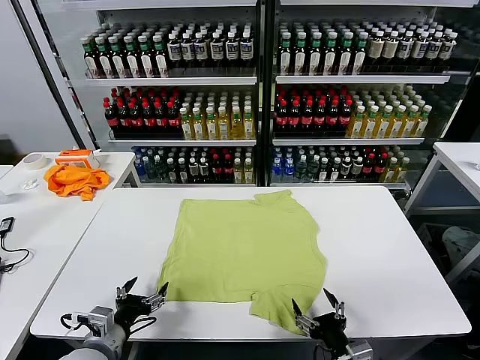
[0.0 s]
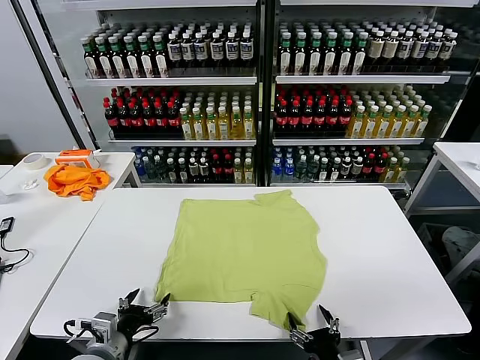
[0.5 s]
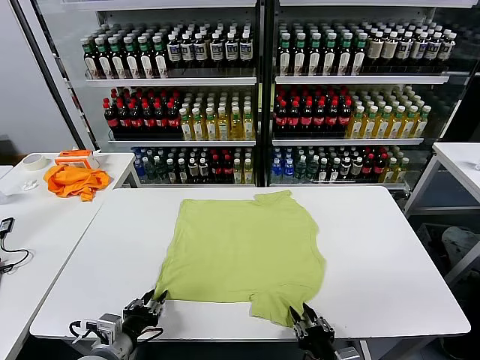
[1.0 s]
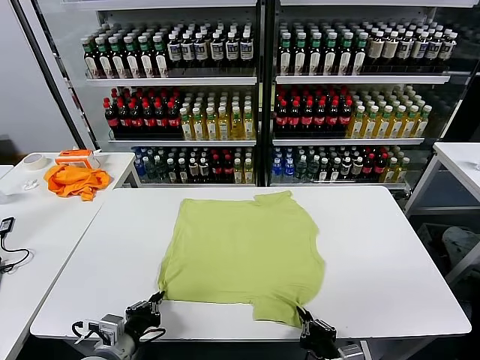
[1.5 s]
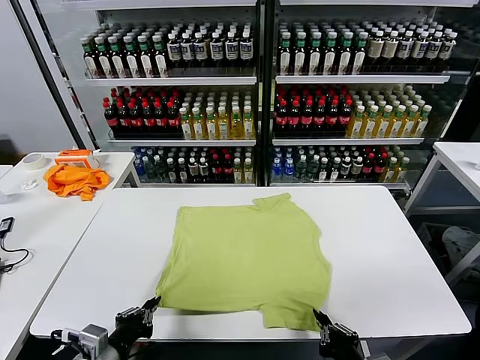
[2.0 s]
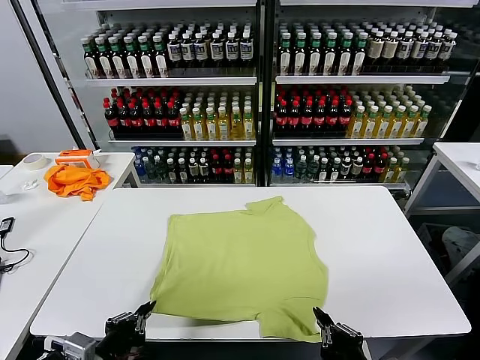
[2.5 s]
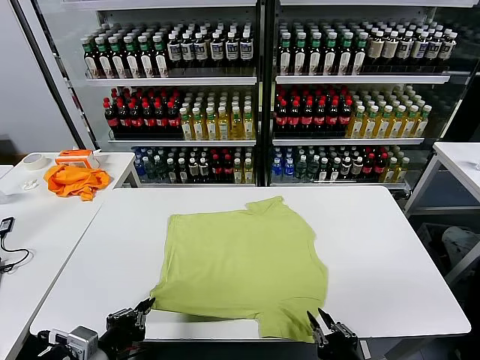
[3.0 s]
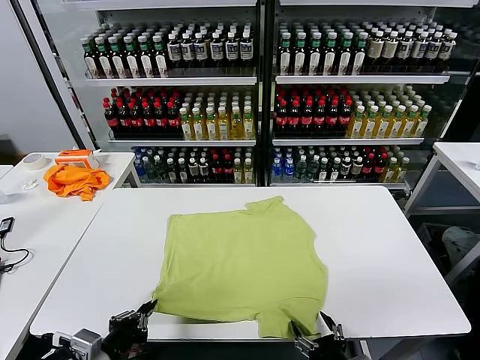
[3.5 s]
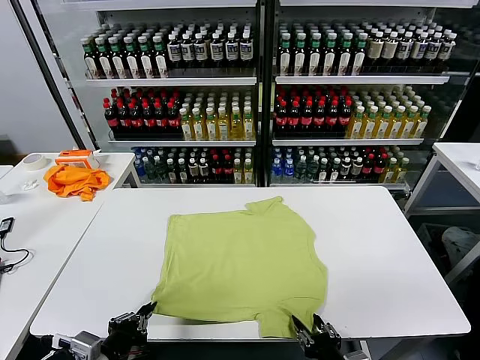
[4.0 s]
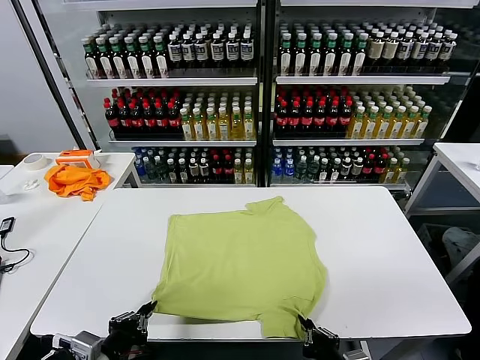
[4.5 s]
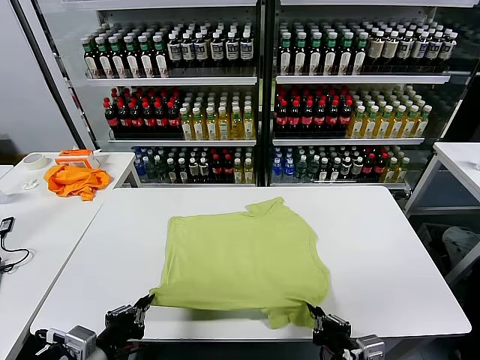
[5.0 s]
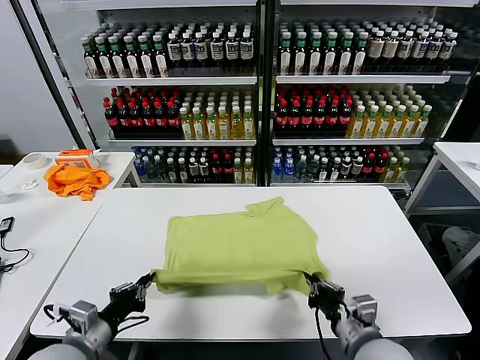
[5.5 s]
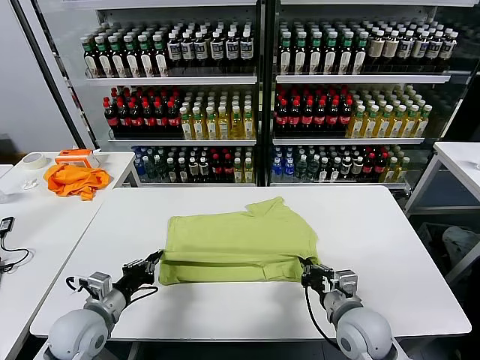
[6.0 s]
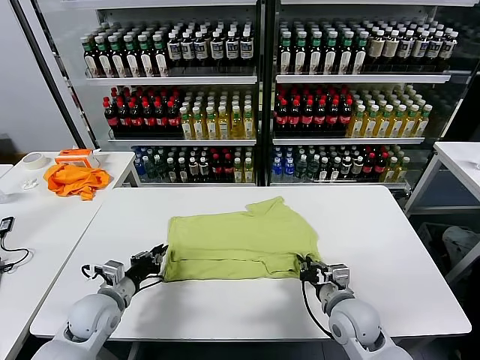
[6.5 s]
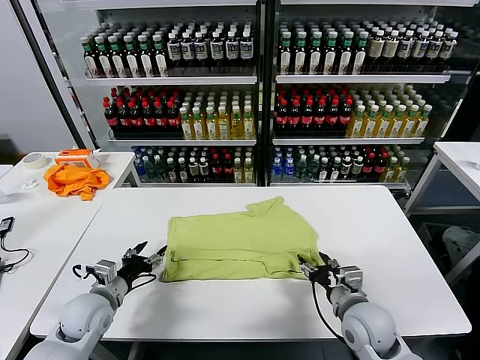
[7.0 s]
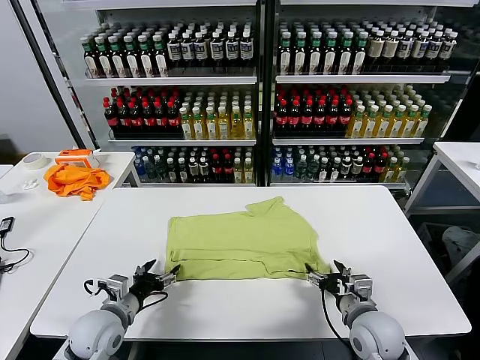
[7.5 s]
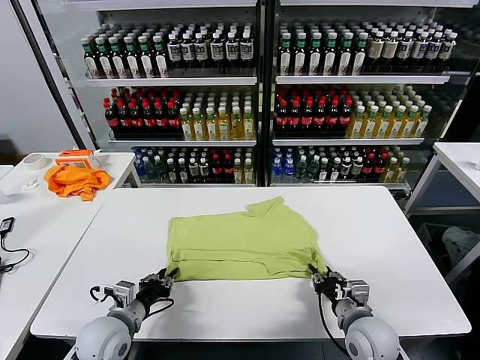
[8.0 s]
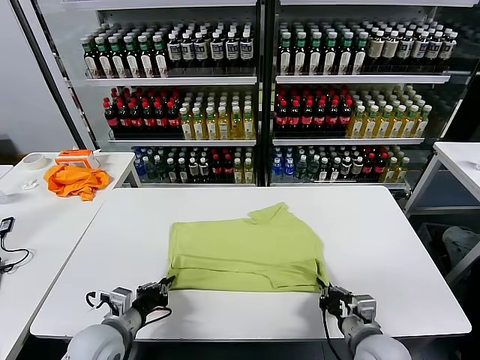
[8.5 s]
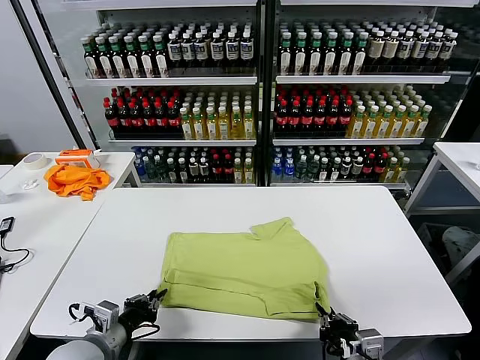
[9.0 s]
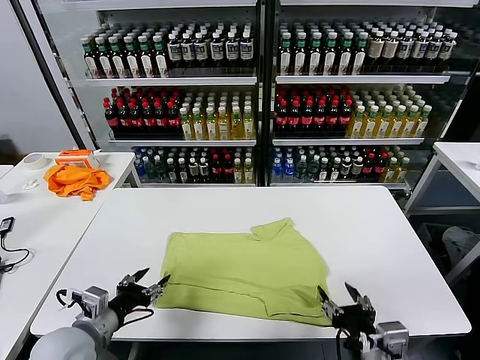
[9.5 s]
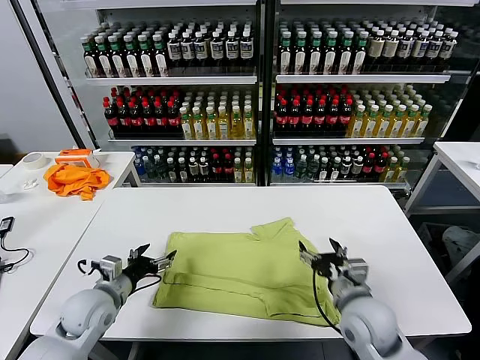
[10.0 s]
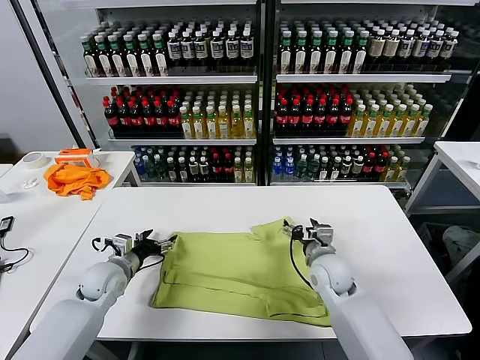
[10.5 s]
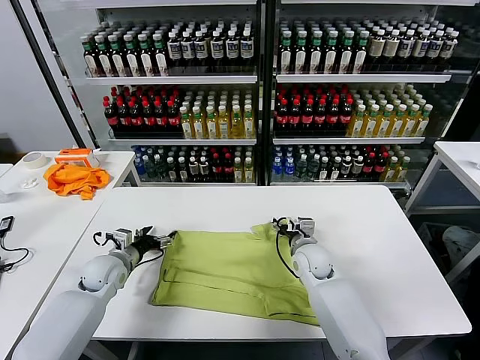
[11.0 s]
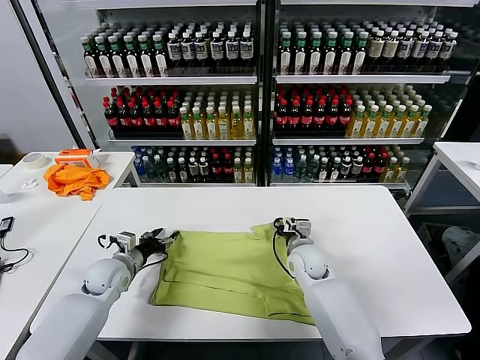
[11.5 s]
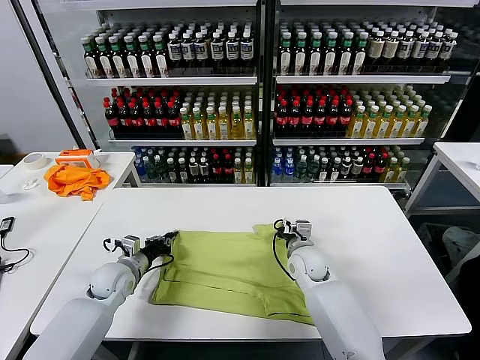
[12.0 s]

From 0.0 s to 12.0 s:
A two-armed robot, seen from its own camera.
Task of the whole recording: fold and organize the clothes.
Step, from 0.0 s to 1.0 s: use both grippers simultaneously to clamp the lower edge of the clothing fabric.
Step, from 1.5 s to 6.5 s: use both grippers to drag the lower edge of the fabric forward and fold it over the upper edge.
Step, from 7.0 s to 9.0 s: Drag the clothes downward with both gripper.
Step, from 9.5 s to 12.0 s: use both grippers simultaneously to clamp the upper edge of the clothing fabric.
From 2.0 s to 4.0 s: The right gripper moves downward, some 5 cm, and opens, then closes again.
From 4.0 s to 6.0 s: Both grippers move forward, approximately 15 cm.
From 6.0 s to 8.0 s: The left gripper moves roughly 5 cm, and opens and closes again; the right gripper opens, then closes once more.
From 8.0 s to 10.0 s: The right gripper shifts some 5 cm upward, travels backward and back again, some 10 cm each way, and opens; the left gripper goes roughly 5 cm forward, and opens.
From 10.0 s to 12.0 s: The left gripper shifts some 10 cm forward, and closes its fingers, while the right gripper heads forward, downward and to the left, covering roughly 15 cm, and closes.

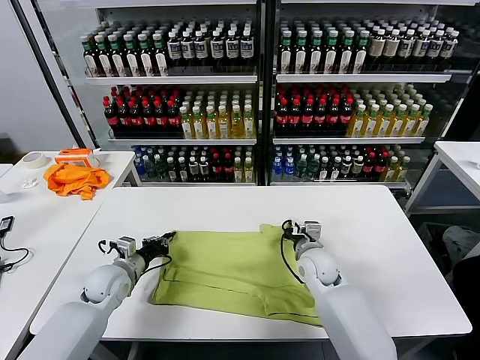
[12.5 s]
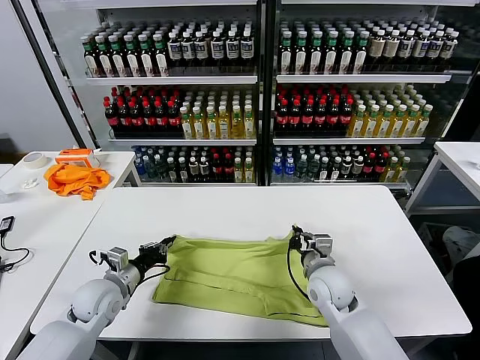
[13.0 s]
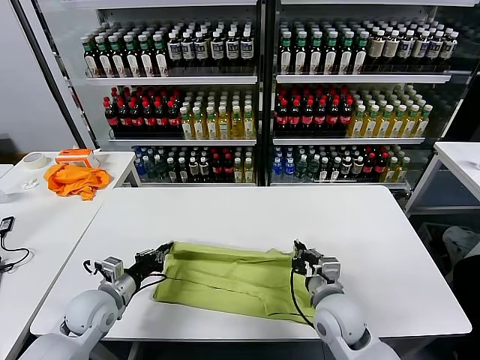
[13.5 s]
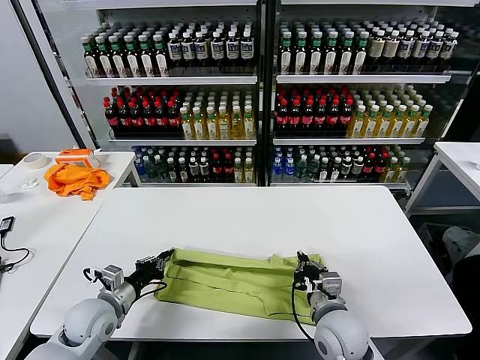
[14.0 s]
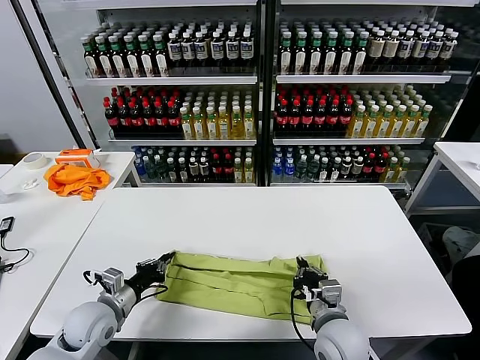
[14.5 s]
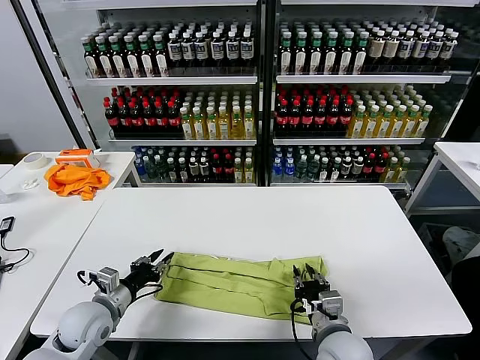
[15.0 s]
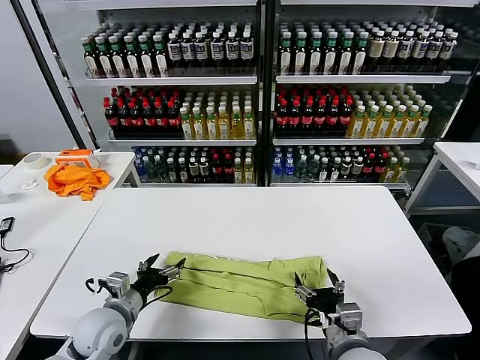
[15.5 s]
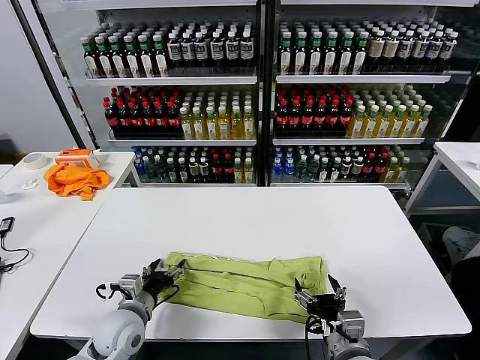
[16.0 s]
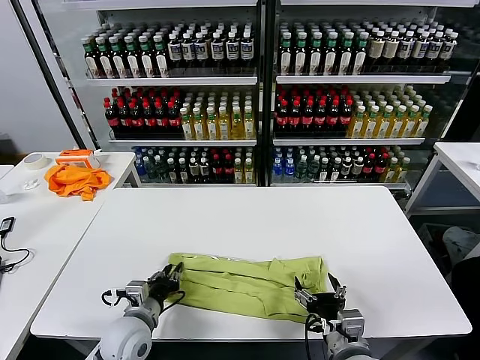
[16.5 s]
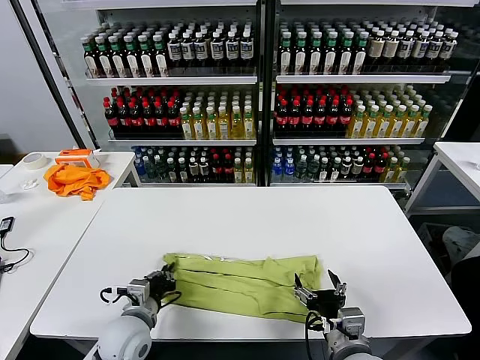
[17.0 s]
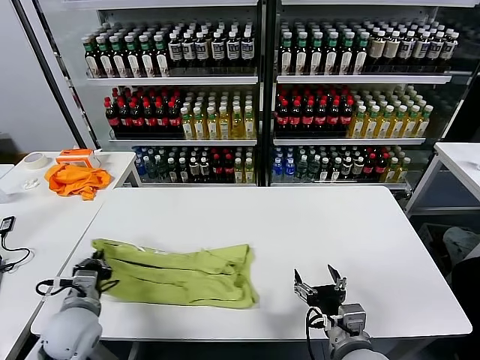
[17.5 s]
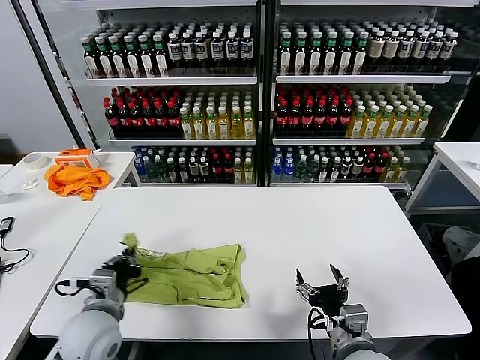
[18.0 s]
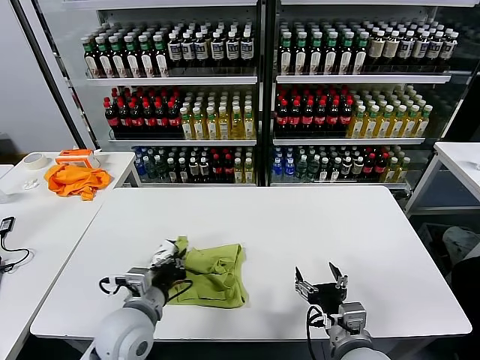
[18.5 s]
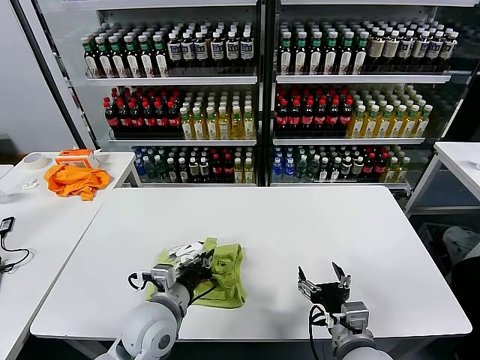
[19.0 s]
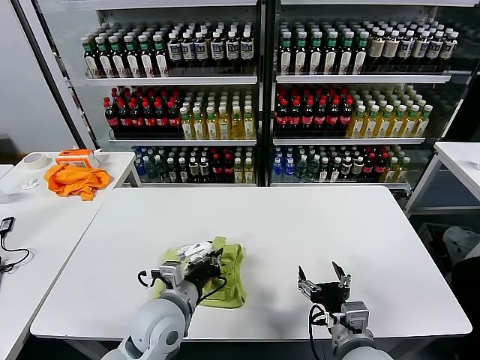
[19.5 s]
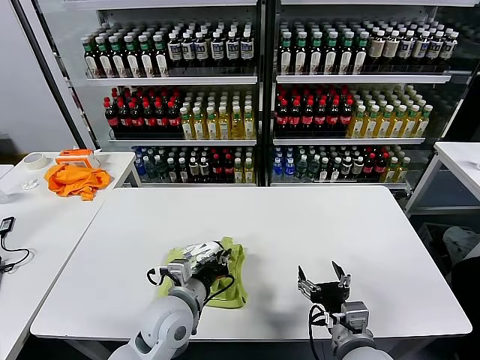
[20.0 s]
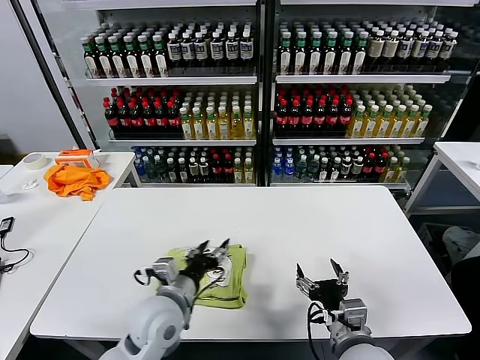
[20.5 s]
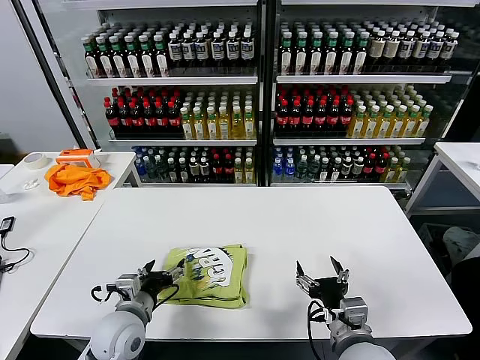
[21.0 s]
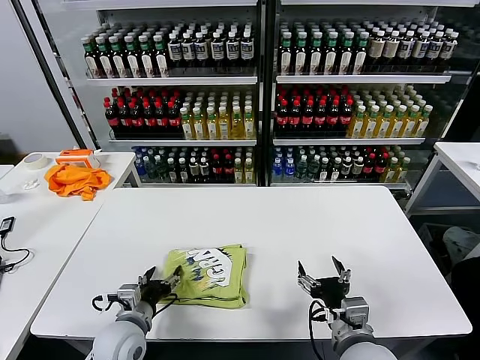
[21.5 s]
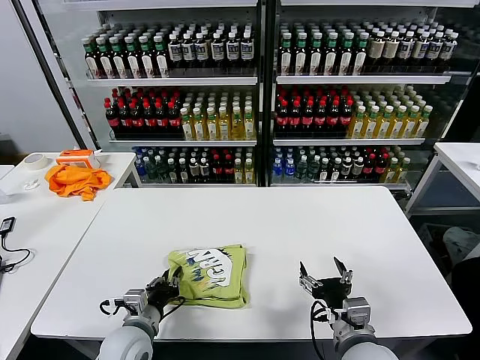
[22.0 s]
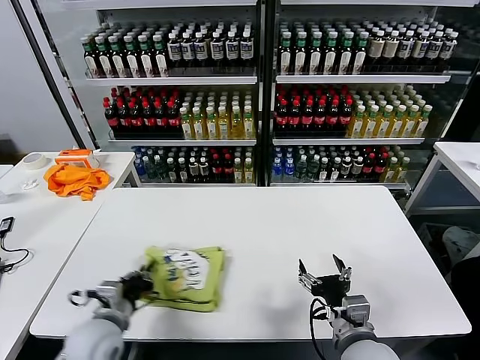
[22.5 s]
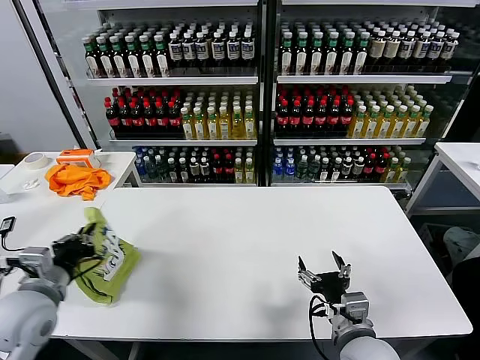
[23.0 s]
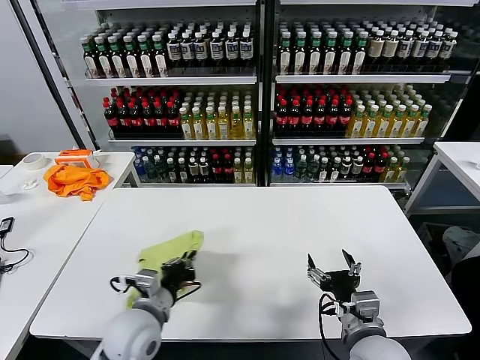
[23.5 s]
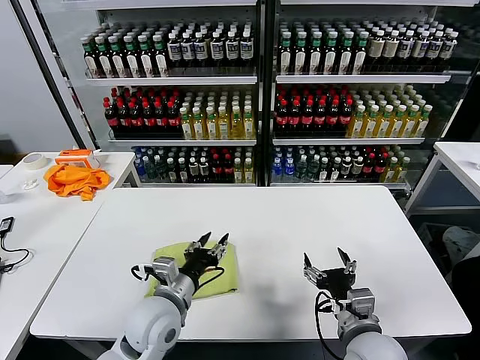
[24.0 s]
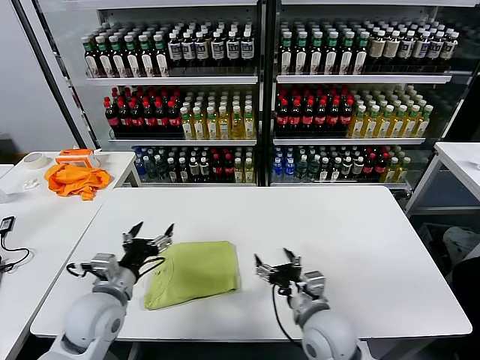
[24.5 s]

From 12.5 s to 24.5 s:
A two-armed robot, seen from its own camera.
Task of the whole recording: fold and organize the clothes.
Step, from 12.5 s to 15.0 s: use both grippers to drag the upper edge of the fabric backward and fold it over the lower edge.
Step, from 15.5 s to 16.5 s: use the left gripper to clamp the left edge of the fabric.
Step, from 17.0 s to 20.0 s: use the left gripper to drag the left edge of the fabric to the left and folds it over the right edge.
Step, from 20.5 s to 23.5 s: Flip the folded clothes over with left gripper.
From 12.5 s to 14.5 s: The left gripper goes about 10 cm backward, while the right gripper goes some 15 cm backward.
From 14.5 s to 16.5 s: The left gripper is displaced to the right by roughly 10 cm, and opens and closes again. The right gripper is displaced backward by some 5 cm, and opens.
From 16.5 s to 18.5 s: The left gripper goes some 10 cm upward, and moves some 10 cm to the left and comes back.
From 18.5 s to 20.5 s: The left gripper shifts approximately 5 cm to the right, and opens.
From 20.5 s to 22.5 s: The left gripper travels to the left by some 10 cm, and closes up.
From 22.5 s to 24.5 s: The left gripper swings left and right, roughly 20 cm each way, with 2 reversals, and opens, while the right gripper heads forward, covering about 5 cm.

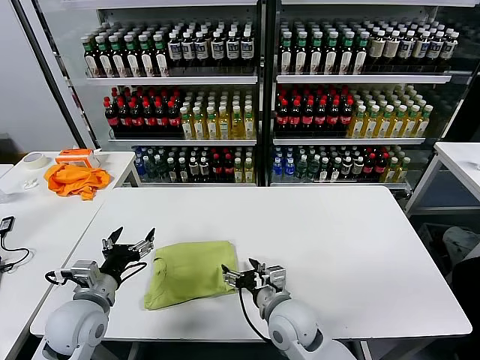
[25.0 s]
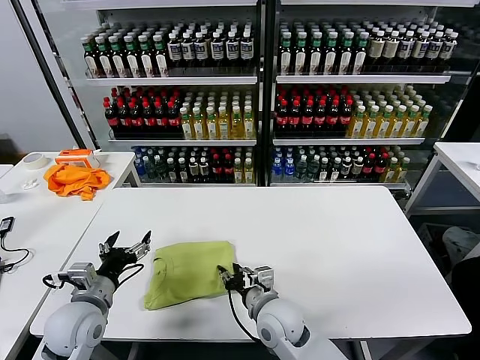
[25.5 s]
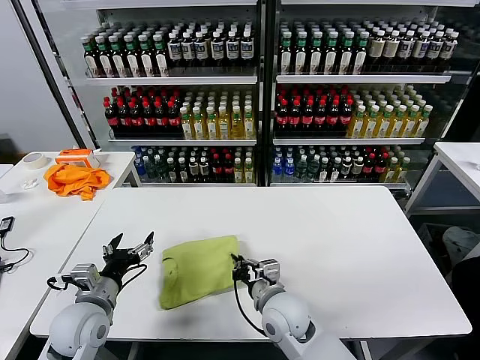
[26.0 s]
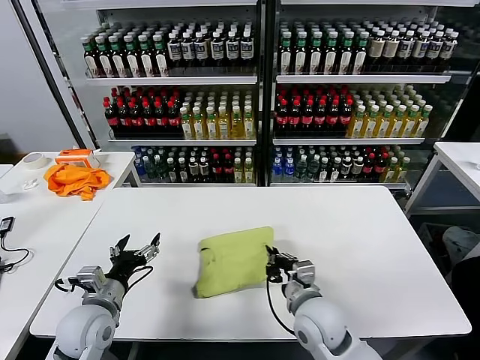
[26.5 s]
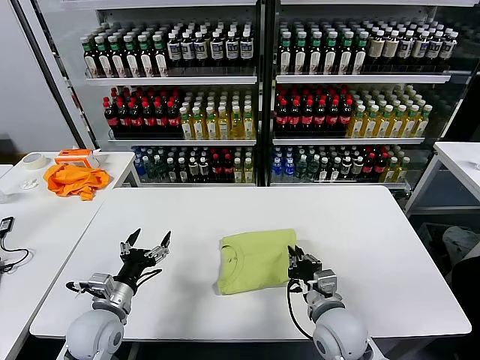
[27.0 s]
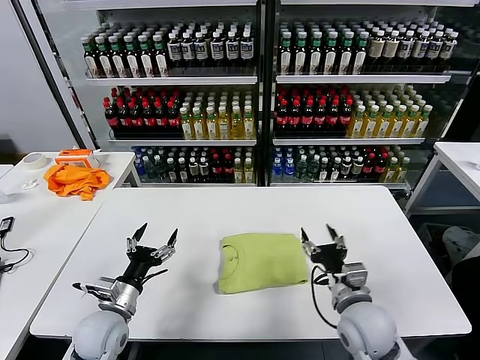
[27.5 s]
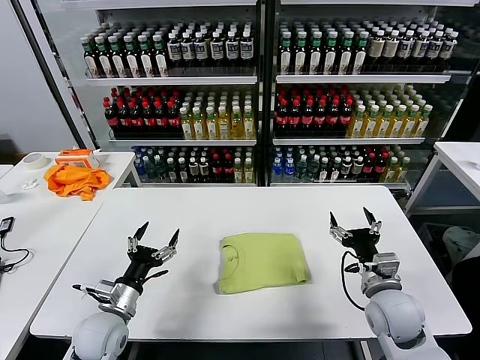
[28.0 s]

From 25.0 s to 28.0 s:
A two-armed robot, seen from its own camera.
Task of the whole recording: fold and organize the clothes.
Step, from 25.0 s to 27.0 s: Drag the clothes to the center of the table.
From 25.0 s to 26.5 s: The right gripper closes.
From 26.5 s to 28.0 s: The right gripper goes about 15 cm to the right, and opens its fingers.
